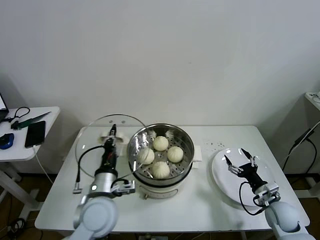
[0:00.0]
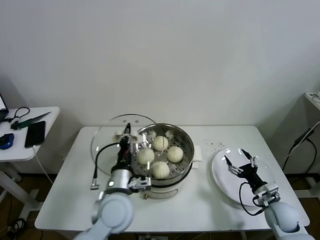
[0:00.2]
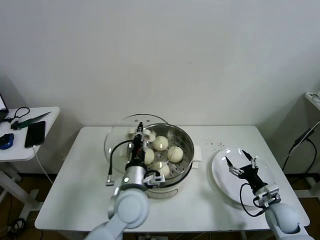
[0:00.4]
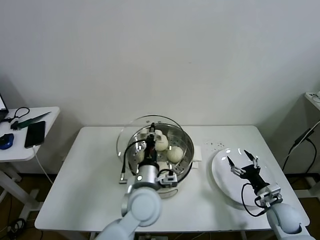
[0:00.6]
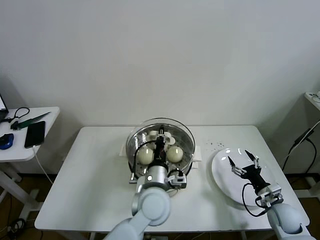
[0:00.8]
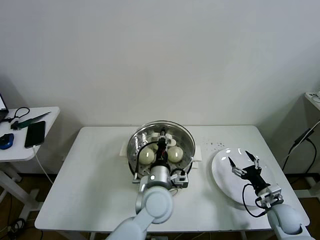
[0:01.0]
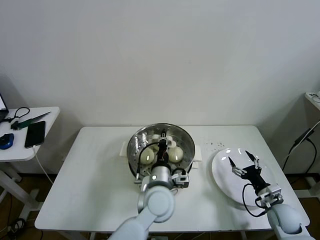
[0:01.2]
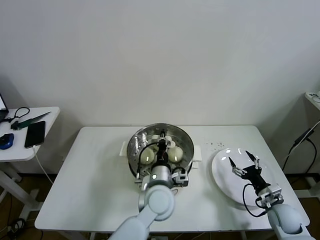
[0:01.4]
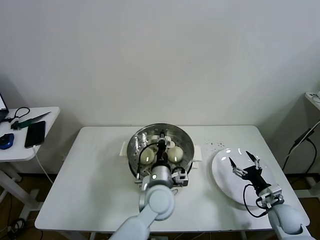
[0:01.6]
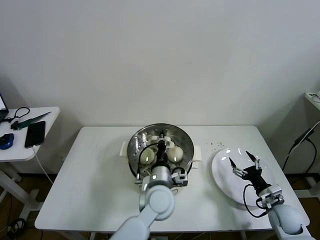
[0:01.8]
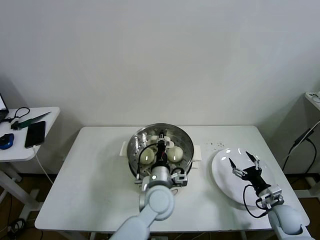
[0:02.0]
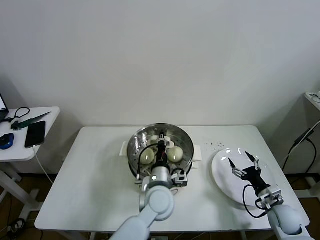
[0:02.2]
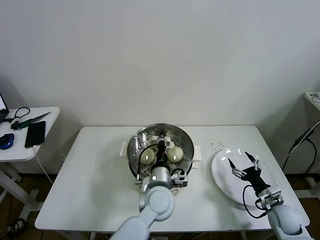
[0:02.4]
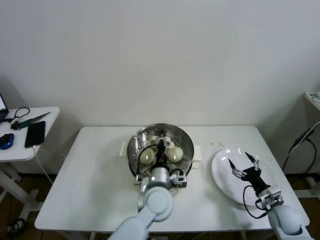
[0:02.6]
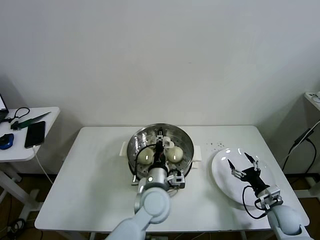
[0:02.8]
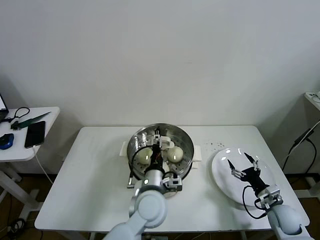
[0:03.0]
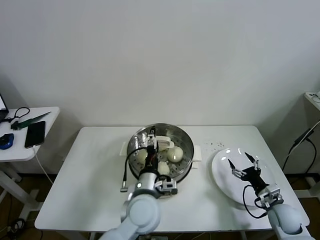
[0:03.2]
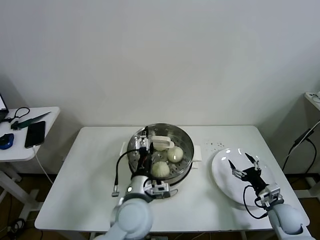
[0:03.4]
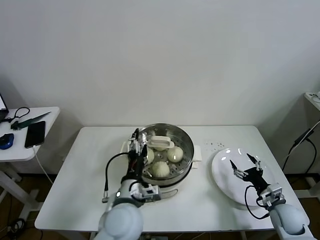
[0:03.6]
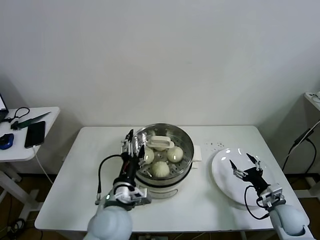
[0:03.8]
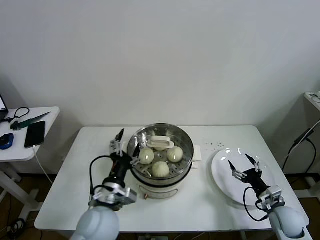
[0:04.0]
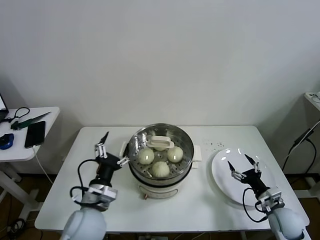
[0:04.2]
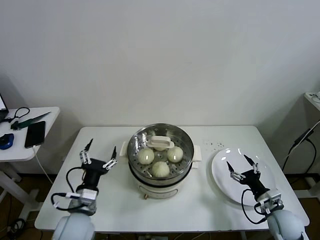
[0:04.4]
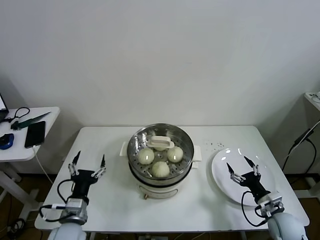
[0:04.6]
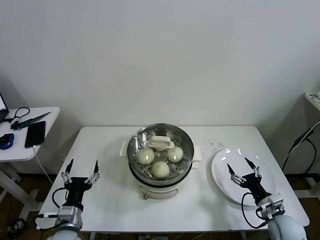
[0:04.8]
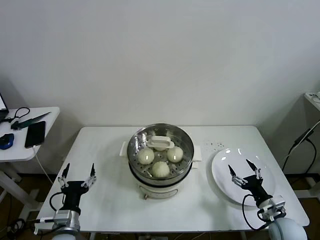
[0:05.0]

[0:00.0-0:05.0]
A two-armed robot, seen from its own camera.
Task of the whole recording: take steamed baozi put them in steamer then cover it.
Step, 0:00.0 to 0:02.8: Place the pot lid on the steamer with left gripper.
0:00.0 to 0:01.6: The left gripper goes about 15 cm to the right.
0:01.6 to 0:03.4: The left gripper shifts roughly 5 cm to the left, and opens up.
0:03.4 to 0:05.0: The left gripper is displaced to the left and downward by roughly 25 cm.

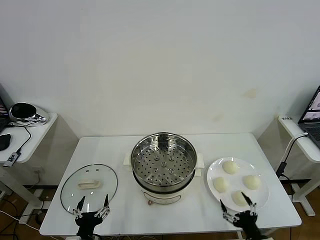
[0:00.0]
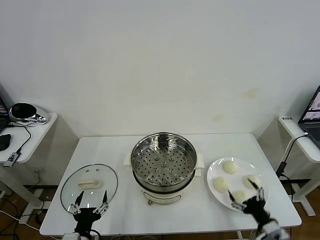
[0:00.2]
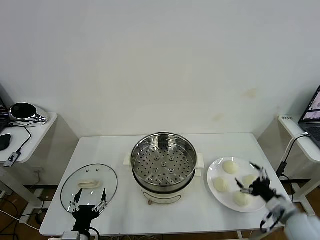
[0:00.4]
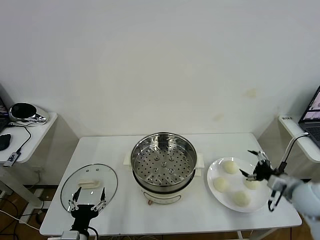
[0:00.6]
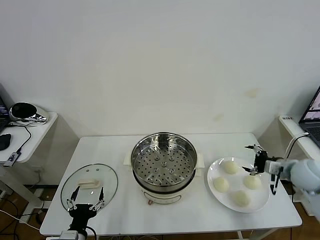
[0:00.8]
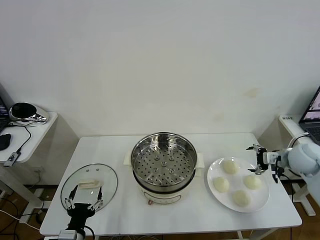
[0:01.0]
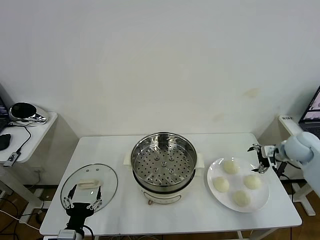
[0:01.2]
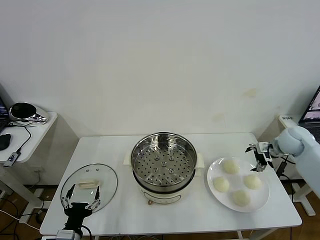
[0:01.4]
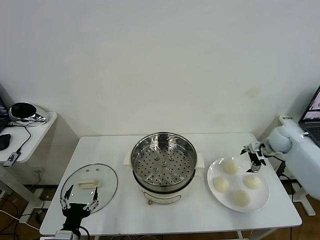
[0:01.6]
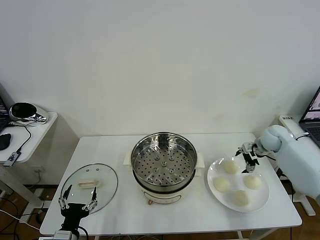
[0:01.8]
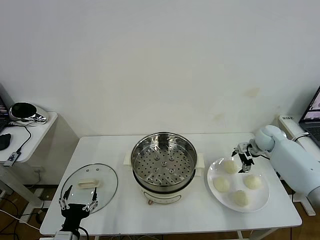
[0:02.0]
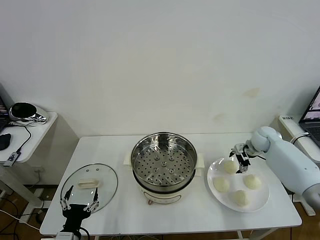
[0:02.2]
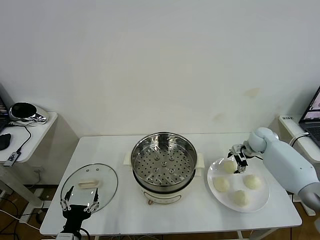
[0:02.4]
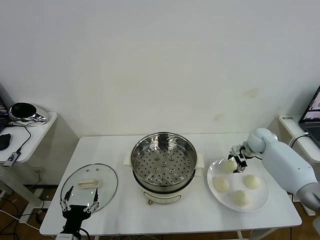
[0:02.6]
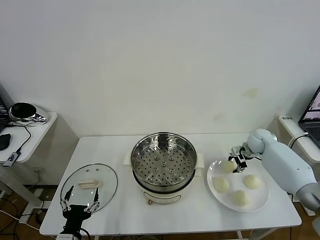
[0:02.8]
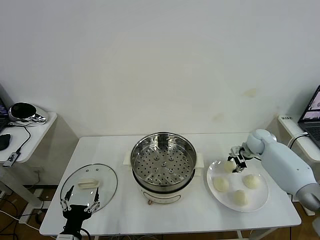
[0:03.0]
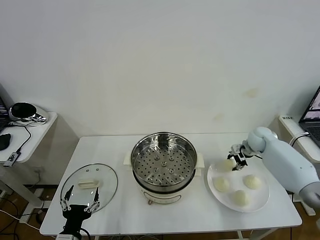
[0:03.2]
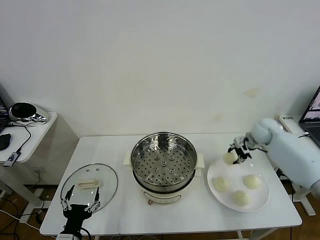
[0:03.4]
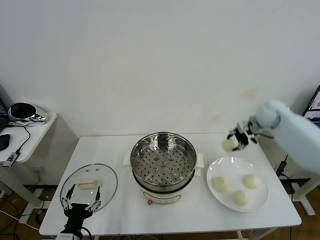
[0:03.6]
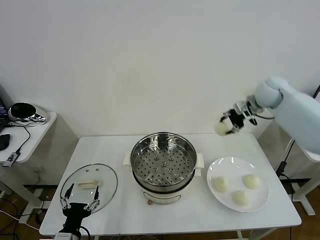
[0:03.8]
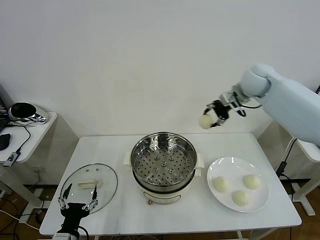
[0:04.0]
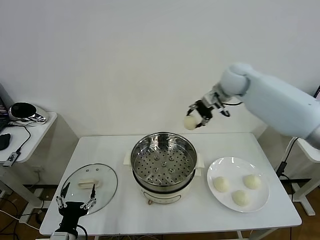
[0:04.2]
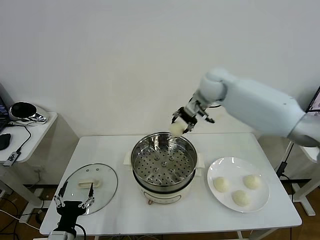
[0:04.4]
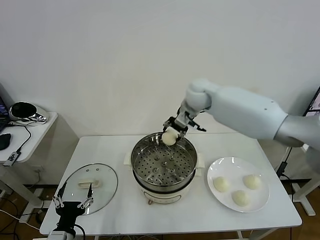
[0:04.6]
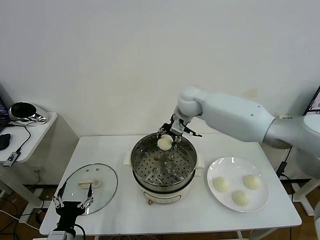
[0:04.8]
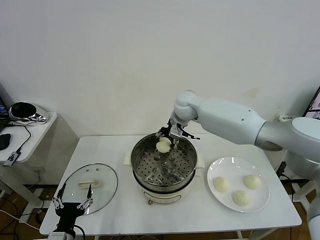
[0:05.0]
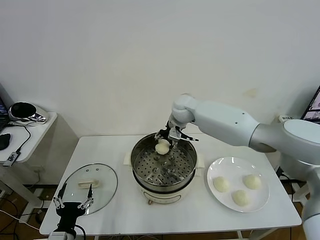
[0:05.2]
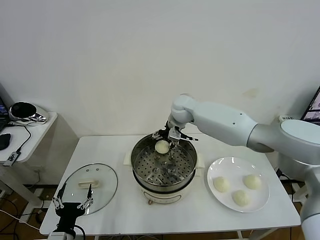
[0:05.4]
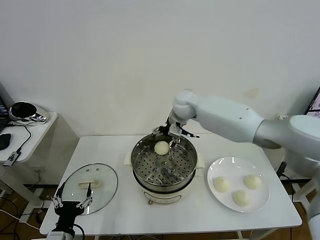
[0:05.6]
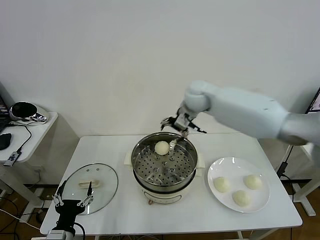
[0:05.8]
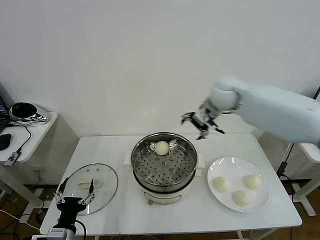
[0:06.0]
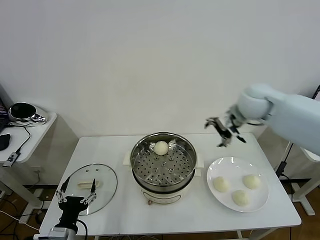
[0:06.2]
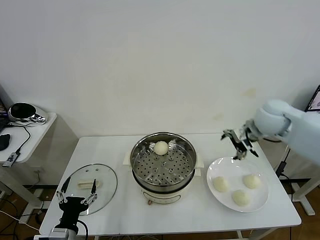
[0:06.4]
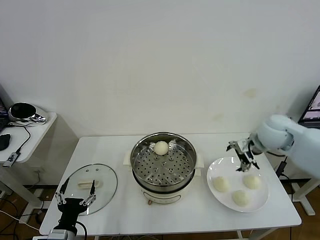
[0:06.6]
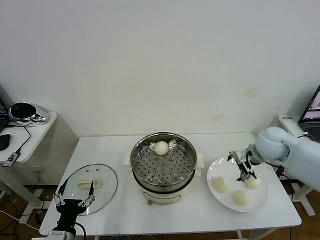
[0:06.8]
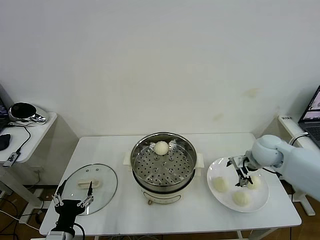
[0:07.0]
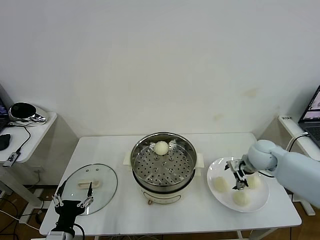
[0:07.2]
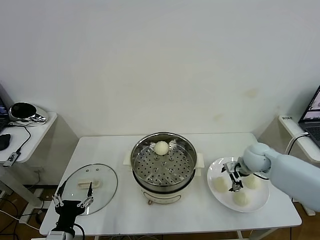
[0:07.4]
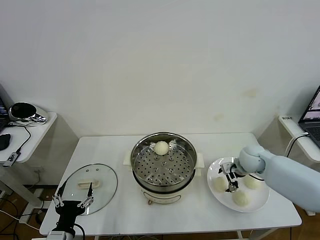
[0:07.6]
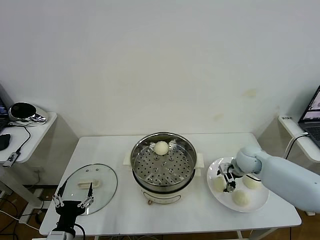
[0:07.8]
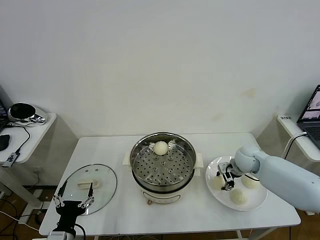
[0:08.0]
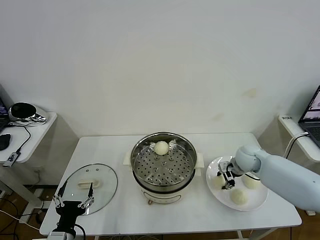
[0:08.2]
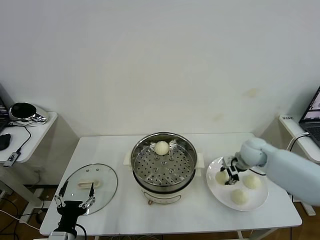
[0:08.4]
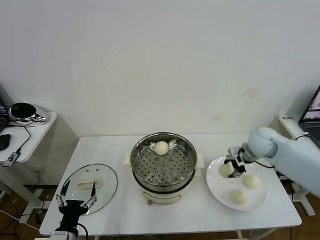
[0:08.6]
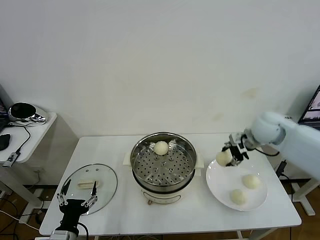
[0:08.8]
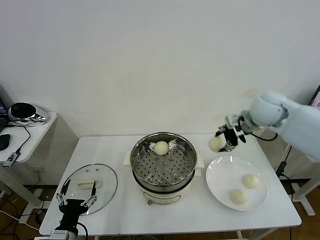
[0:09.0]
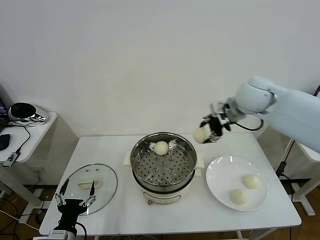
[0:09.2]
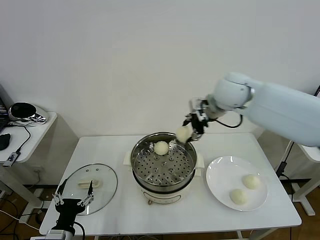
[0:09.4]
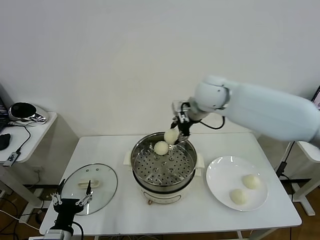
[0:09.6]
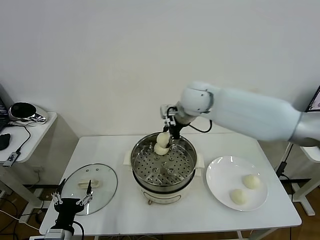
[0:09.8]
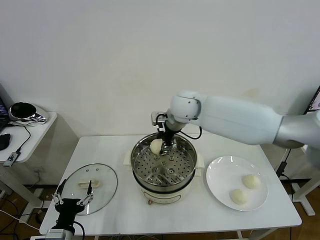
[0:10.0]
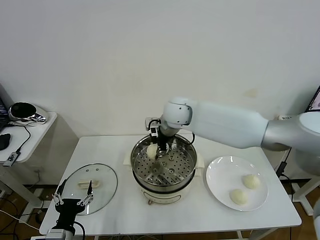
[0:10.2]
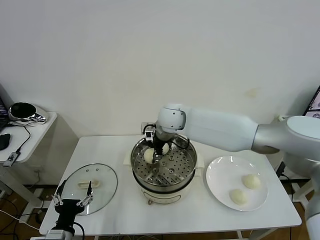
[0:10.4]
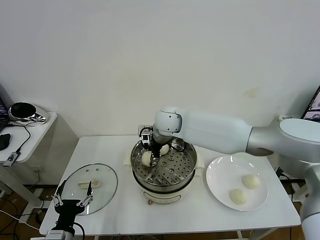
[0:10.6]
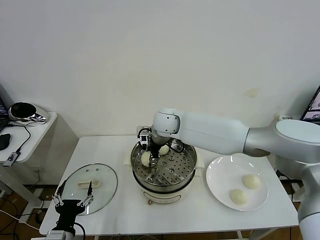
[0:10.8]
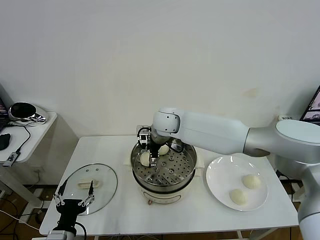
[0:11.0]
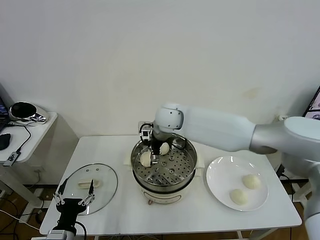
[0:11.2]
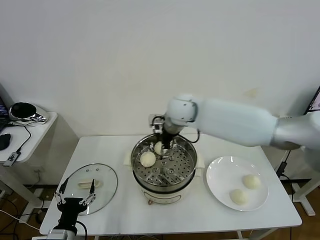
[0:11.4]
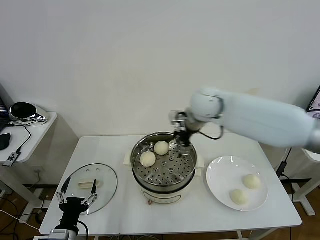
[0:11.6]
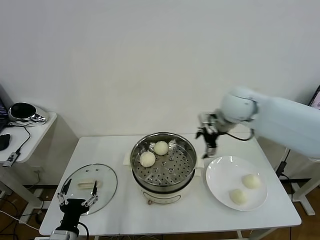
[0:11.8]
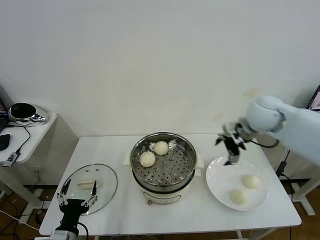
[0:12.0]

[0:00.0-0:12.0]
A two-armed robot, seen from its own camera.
Task of the whole recording: take steamed baozi put them in steamer then cover it.
Step, 0:00.0 to 0:02.6: Grasp the baozi in the plate with right gripper.
Step, 0:02.8 to 0:05.6: Place the baozi on the steamer with right gripper.
Step, 0:05.8 to 0:08.0: Grasp the baozi in the plate with right gripper.
Step, 0:08.2 to 0:11.2: Place the baozi on the steamer with right gripper.
0:01.6 to 0:03.0: The right gripper changes place by some 5 cm, and closes its fingers.
0:03.0 to 0:04.4: The right gripper travels to the left and upward by about 35 cm.
0:04.4 to 0:06.0: The right gripper travels to the right and backward by about 10 cm, and opens.
0:06.0 to 0:07.6: The right gripper goes some 25 cm downward.
0:07.6 to 0:09.0: The right gripper moves upward, some 25 cm, and closes up.
0:09.0 to 0:10.4: The right gripper is displaced to the left by approximately 25 cm.
0:10.4 to 0:12.0: The right gripper is displaced to the right by about 30 cm, and opens.

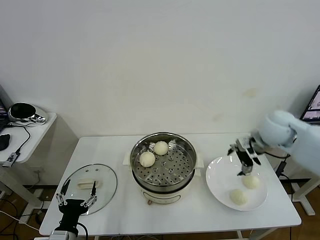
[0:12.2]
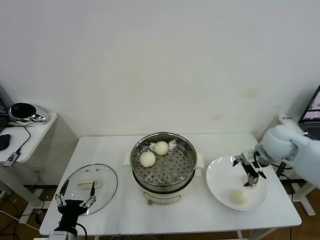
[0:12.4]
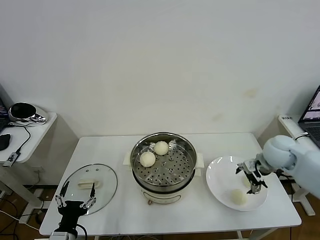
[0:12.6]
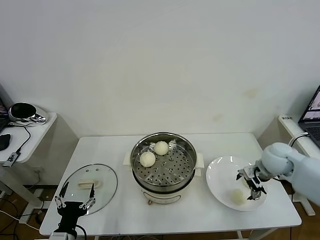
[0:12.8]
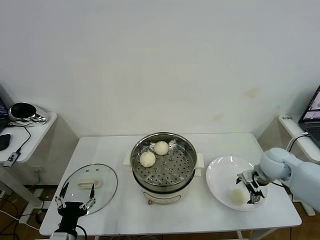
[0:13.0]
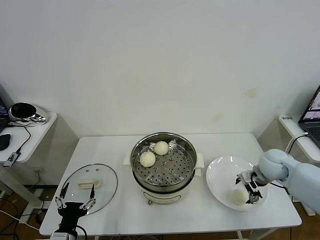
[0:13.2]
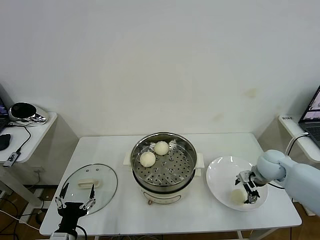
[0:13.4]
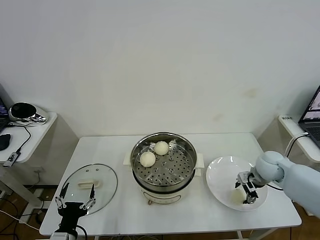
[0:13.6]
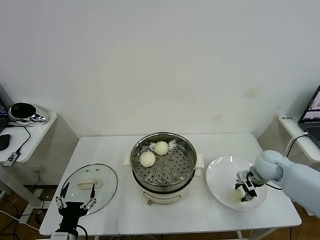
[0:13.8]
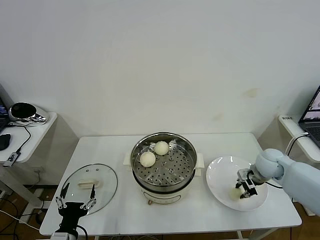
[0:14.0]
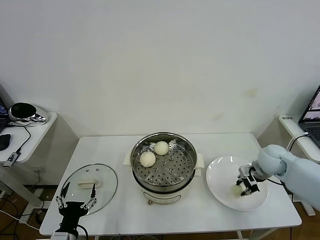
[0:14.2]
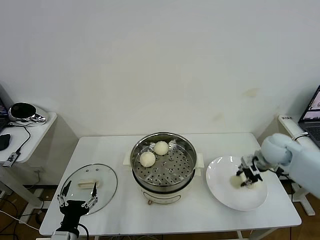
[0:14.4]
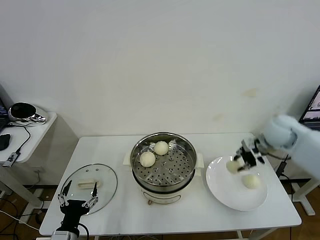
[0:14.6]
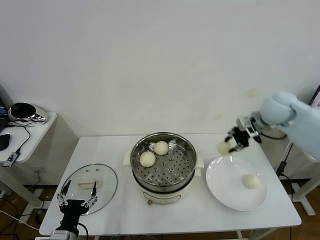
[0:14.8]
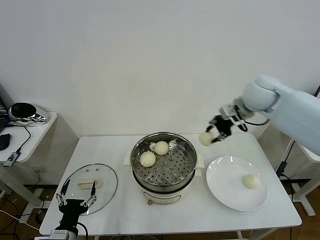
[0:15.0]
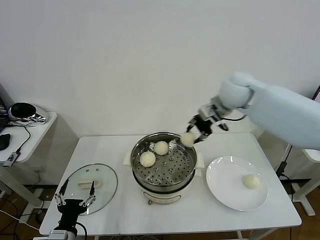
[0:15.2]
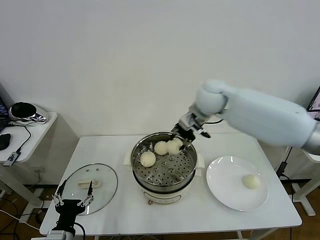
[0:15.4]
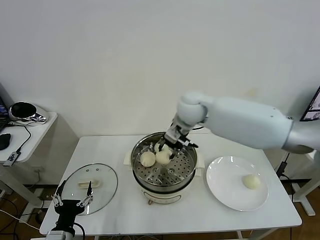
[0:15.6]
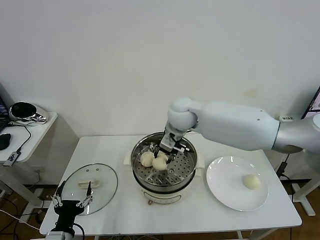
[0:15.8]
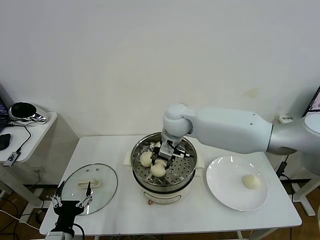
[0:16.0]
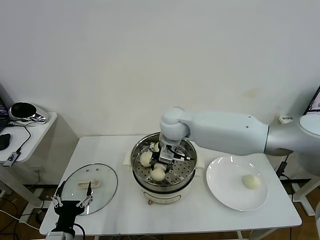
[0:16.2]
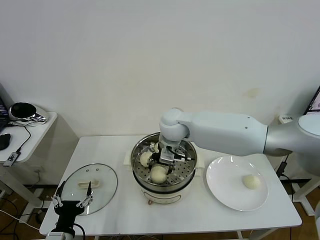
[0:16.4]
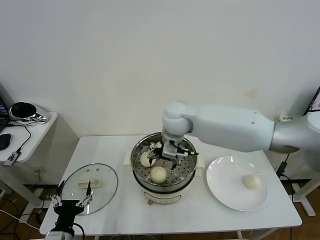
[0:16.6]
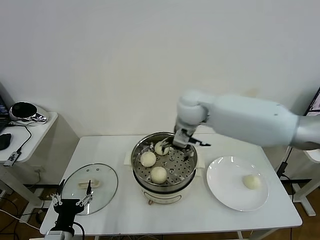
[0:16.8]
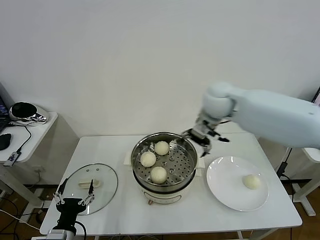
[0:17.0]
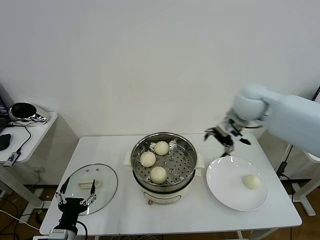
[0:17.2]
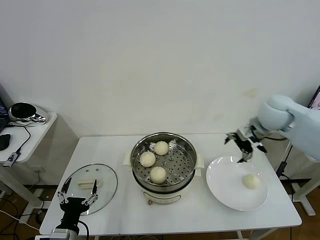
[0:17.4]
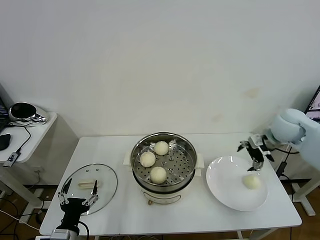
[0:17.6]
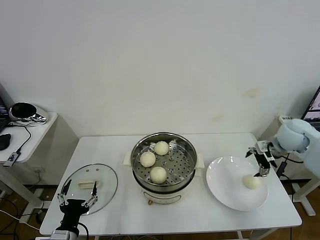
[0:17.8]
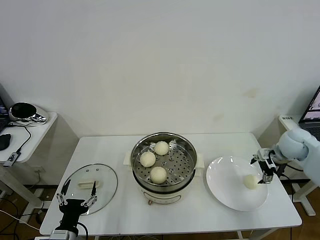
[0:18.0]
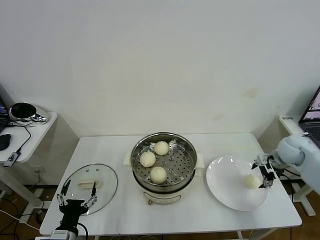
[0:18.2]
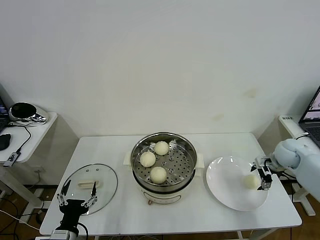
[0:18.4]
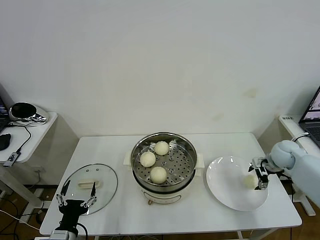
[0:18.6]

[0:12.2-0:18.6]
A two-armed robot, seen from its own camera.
Task of the whole recording: take steamed baozi put them in steamer then cover it.
Step, 0:12.2 to 0:13.8: Grasp the baozi in the plate with right gripper.
Step, 0:14.0 to 0:16.4: Place the baozi on the steamer with right gripper.
0:12.2 to 0:13.8: The right gripper is displaced downward by roughly 15 cm, and closes up.
0:13.8 to 0:15.4: The right gripper travels to the left and upward by about 30 cm.
0:15.4 to 0:17.0: The right gripper moves approximately 10 cm to the left and comes back, and opens.
0:17.0 to 0:18.6: The right gripper is displaced to the right and downward by some 35 cm.
